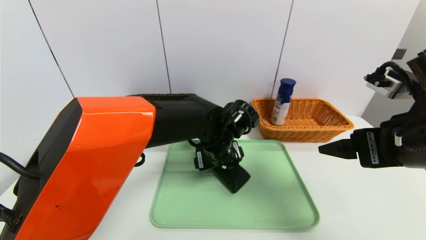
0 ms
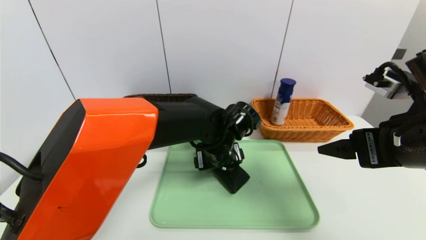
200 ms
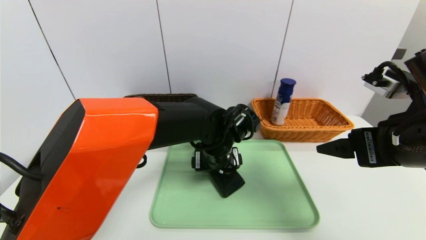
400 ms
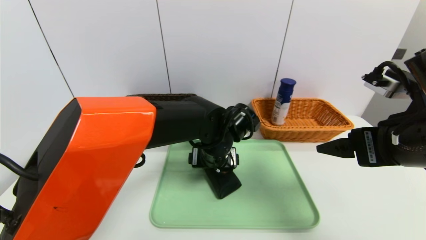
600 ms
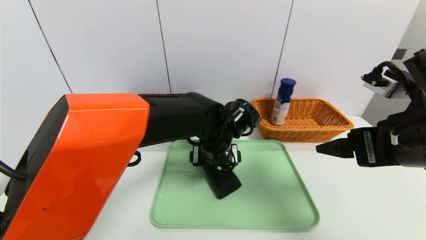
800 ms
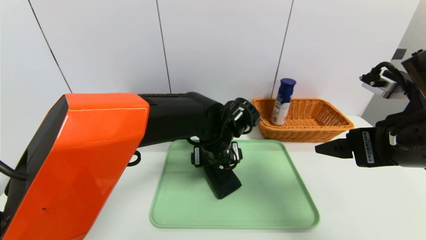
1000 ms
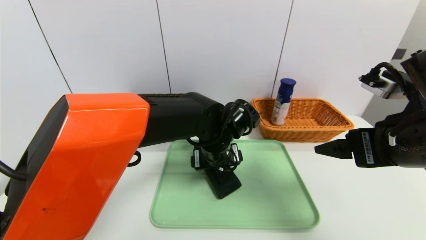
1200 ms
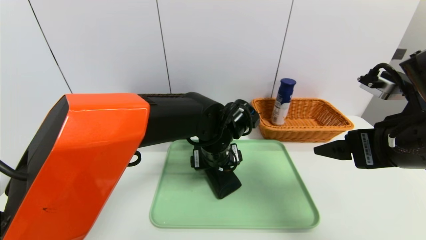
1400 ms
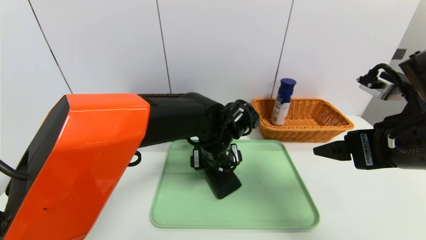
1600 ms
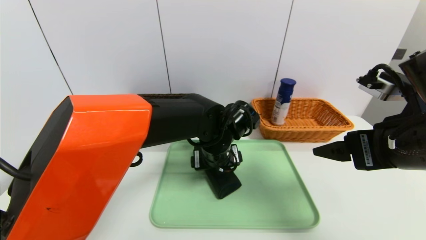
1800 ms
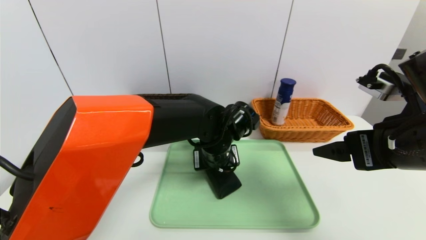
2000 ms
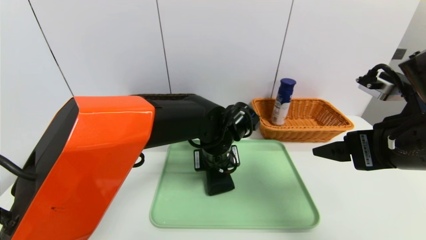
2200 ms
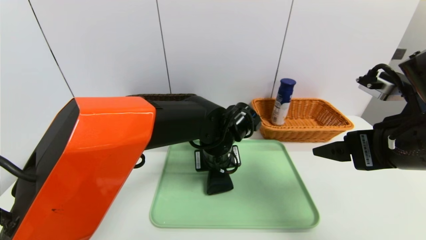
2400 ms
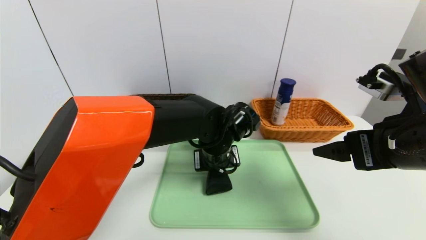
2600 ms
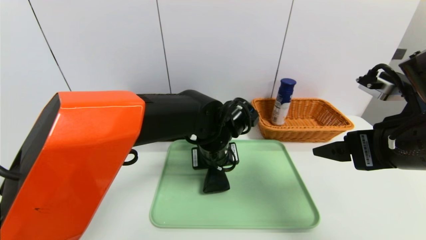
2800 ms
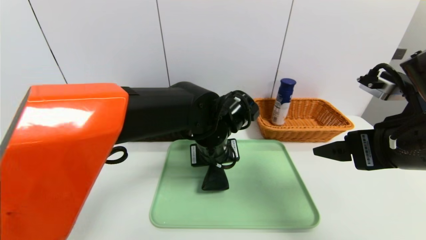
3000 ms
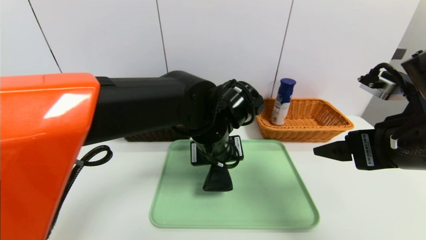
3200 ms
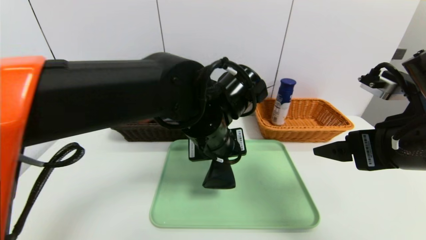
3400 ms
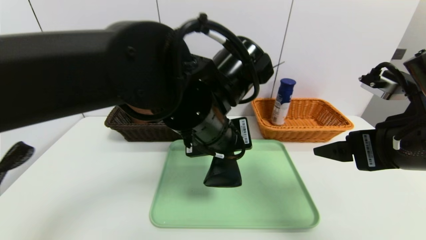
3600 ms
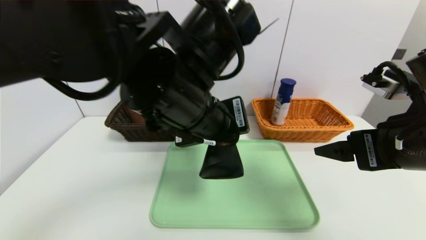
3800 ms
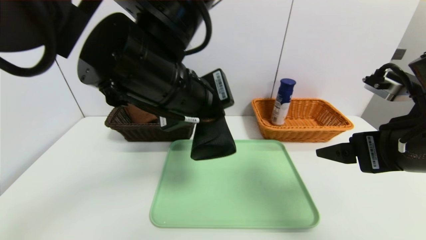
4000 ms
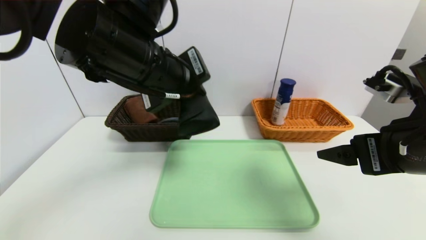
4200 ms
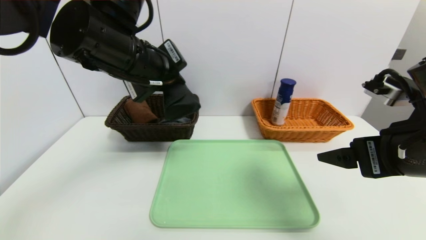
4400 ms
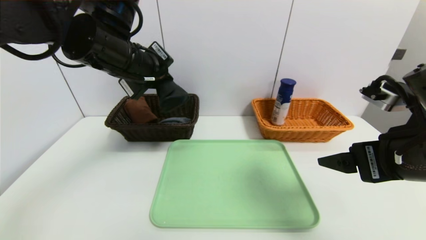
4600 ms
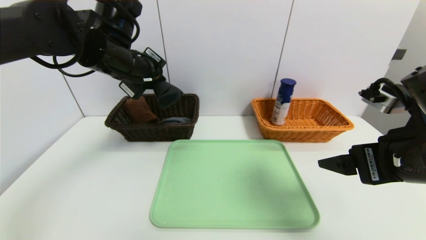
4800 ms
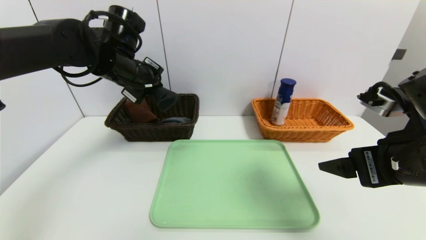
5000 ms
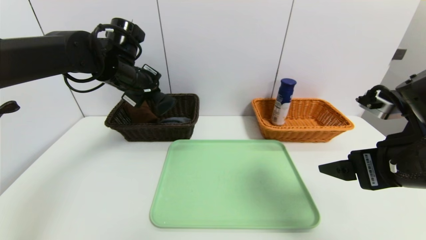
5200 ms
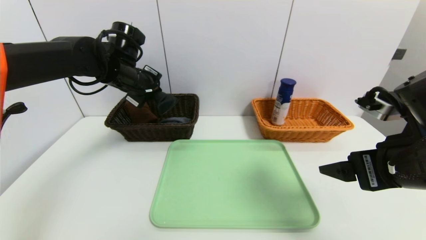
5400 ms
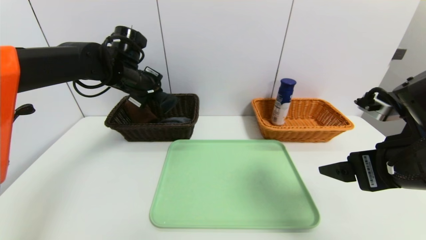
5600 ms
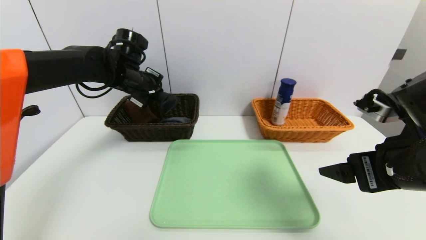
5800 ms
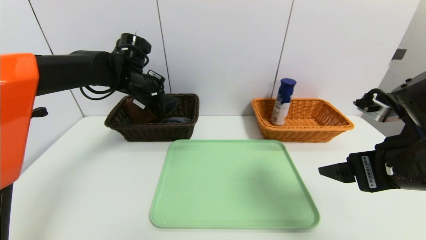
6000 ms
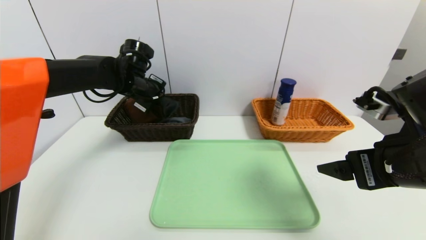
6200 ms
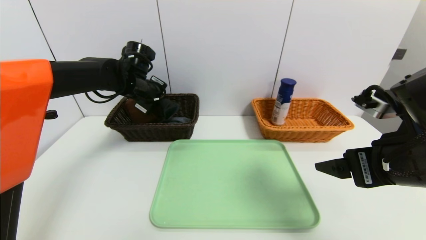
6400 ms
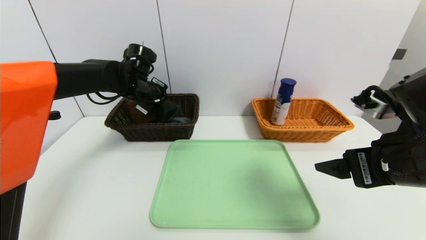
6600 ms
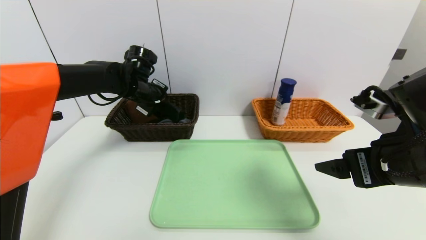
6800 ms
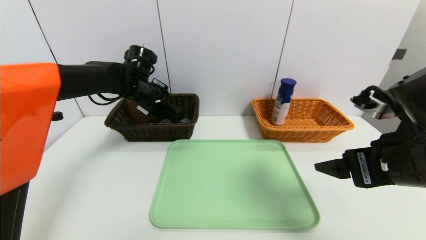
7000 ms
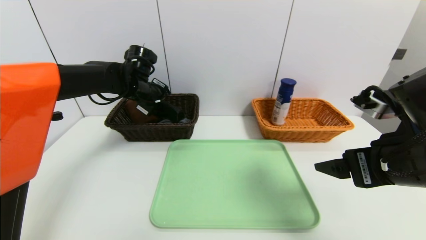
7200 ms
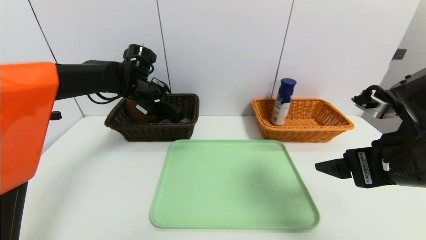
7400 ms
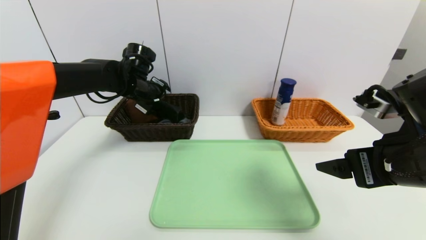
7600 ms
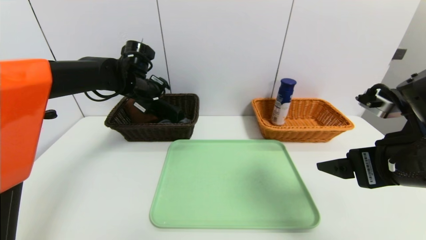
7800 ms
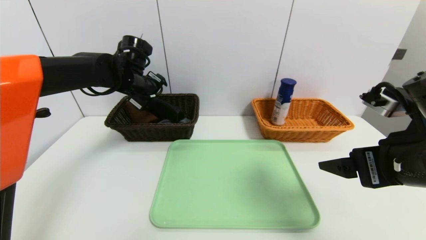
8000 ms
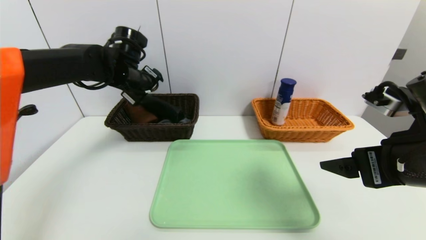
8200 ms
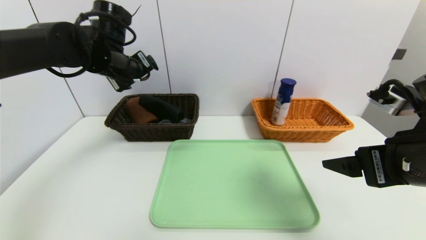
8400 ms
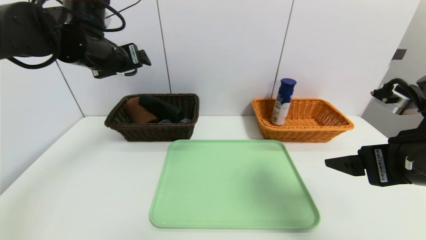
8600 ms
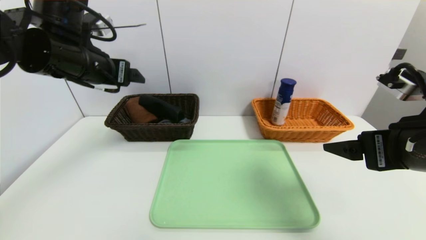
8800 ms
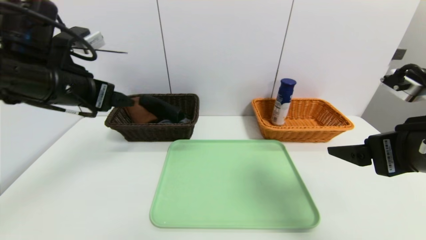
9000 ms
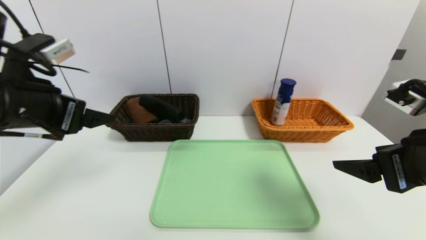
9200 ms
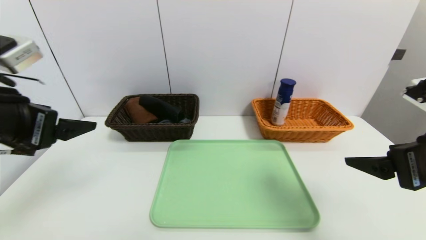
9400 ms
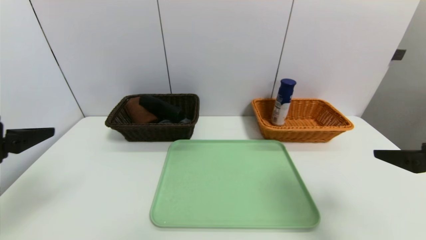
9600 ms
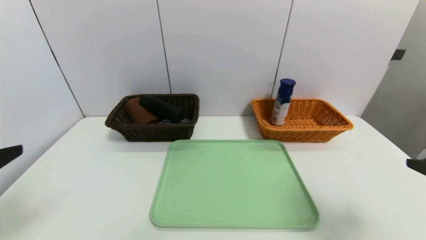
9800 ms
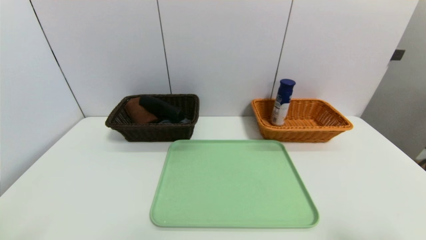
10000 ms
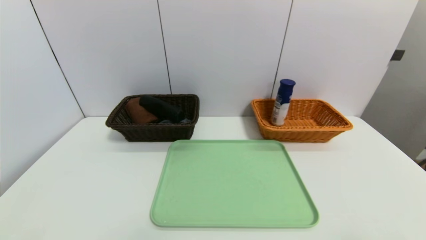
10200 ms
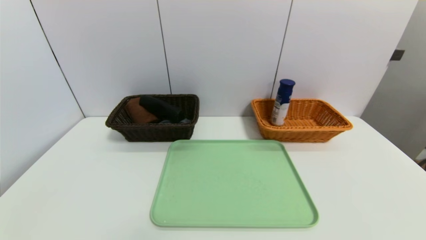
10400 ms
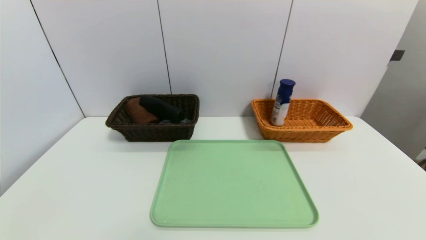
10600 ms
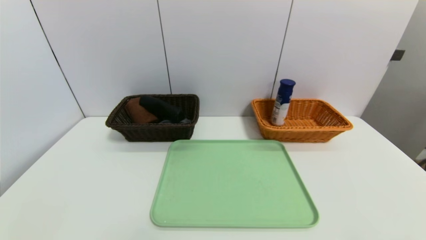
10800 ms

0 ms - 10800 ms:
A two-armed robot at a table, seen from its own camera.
Task of the whole recording: place the food in the right basket with the right gripper, and place the non food items in the left basket with the left gripper.
Step, 0 ms - 7400 ms: Grasp the glasses case and put it in the left basket.
0 ms - 1600 ms: The grippers stay close to where they were, moving slightly.
1600 ms - 3000 ms: The left gripper closes.
3000 ms - 4600 ms: The left gripper is displaced upward and to the left by approximately 20 cm.
4600 ms - 6200 ms: The left gripper shifts about 15 cm forward and downward.
6200 ms - 7800 ms: The left gripper opens up.
7800 ms - 9200 ms: The left gripper heads backward, covering some 25 cm.
9200 ms - 10800 ms: The right gripper shifts about 20 cm backward, downward and to the right, while the left gripper is displaced backward and downward by approximately 30 cm.
